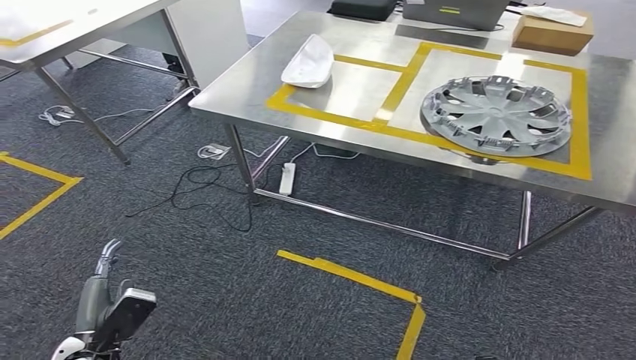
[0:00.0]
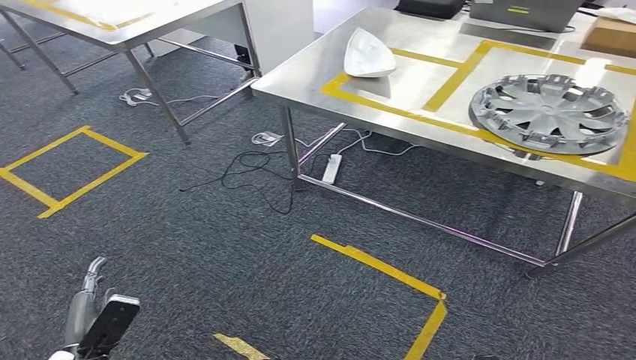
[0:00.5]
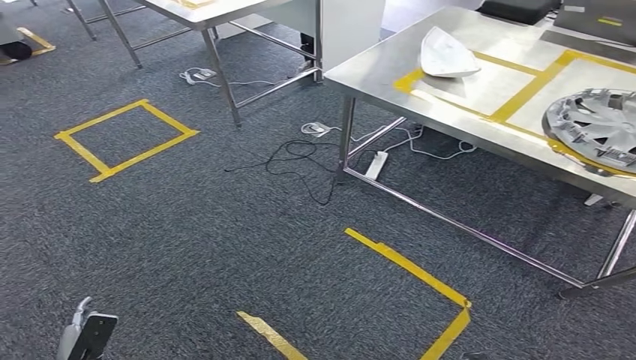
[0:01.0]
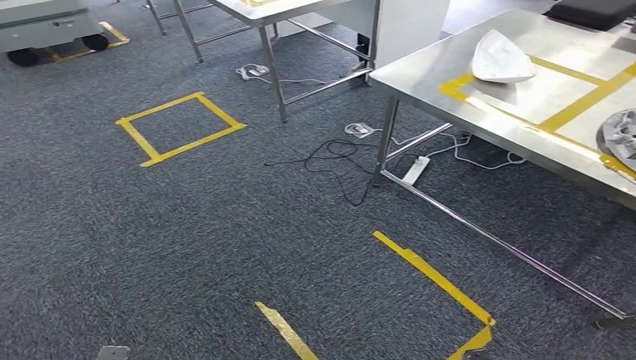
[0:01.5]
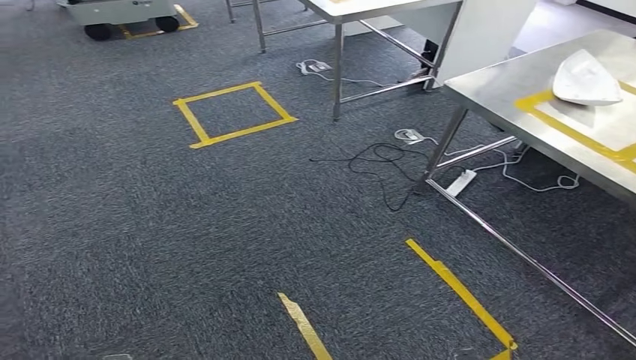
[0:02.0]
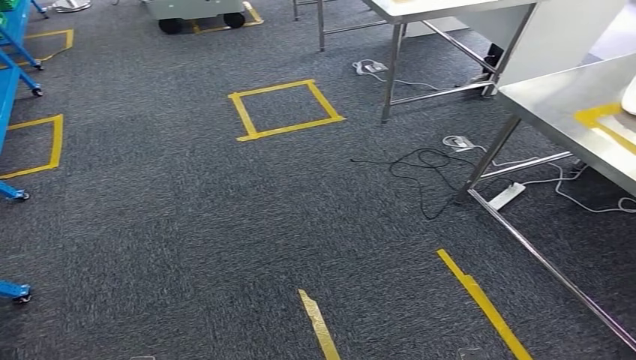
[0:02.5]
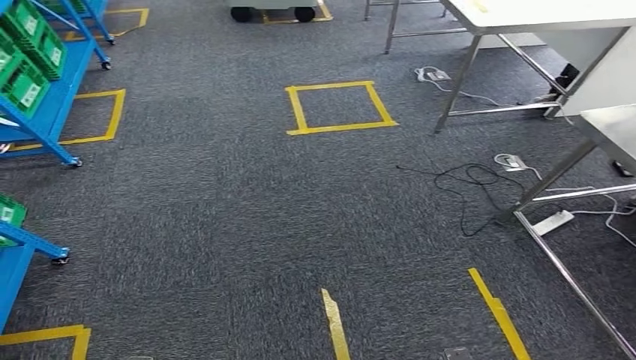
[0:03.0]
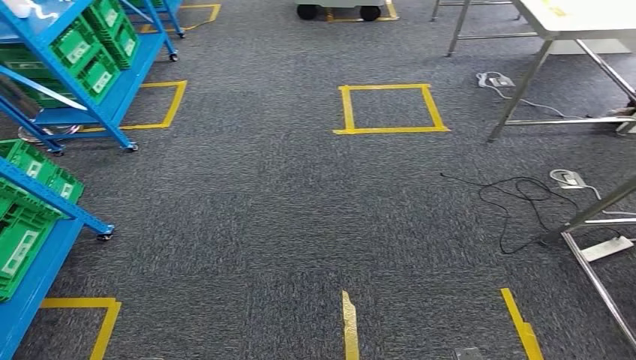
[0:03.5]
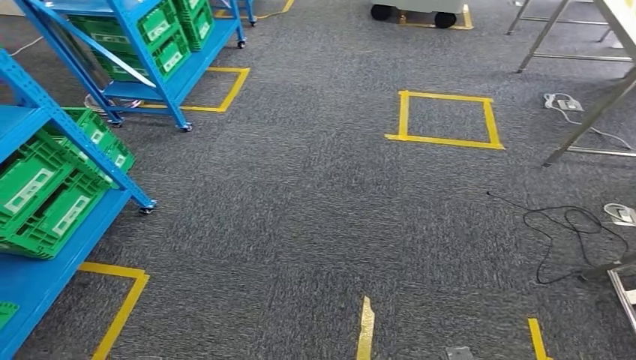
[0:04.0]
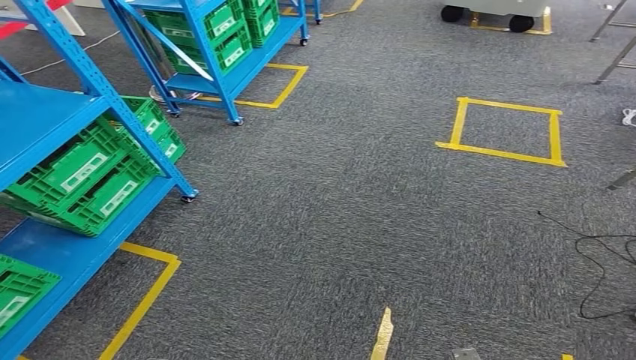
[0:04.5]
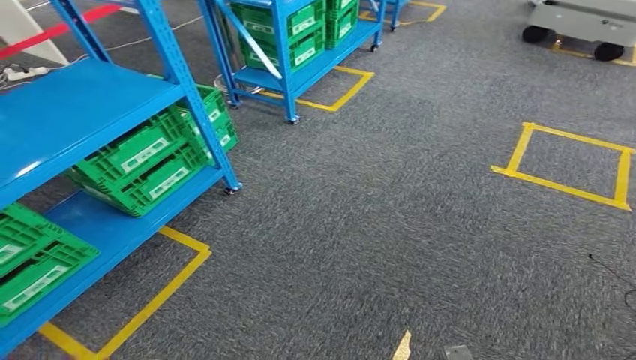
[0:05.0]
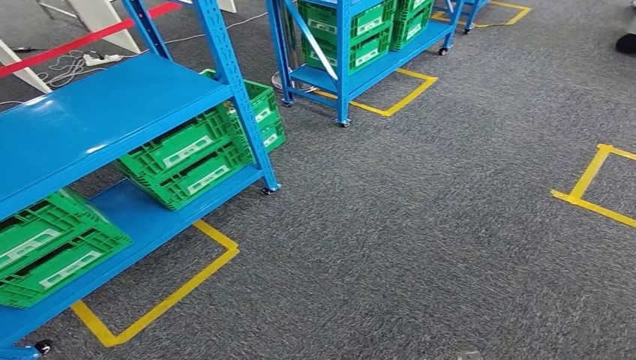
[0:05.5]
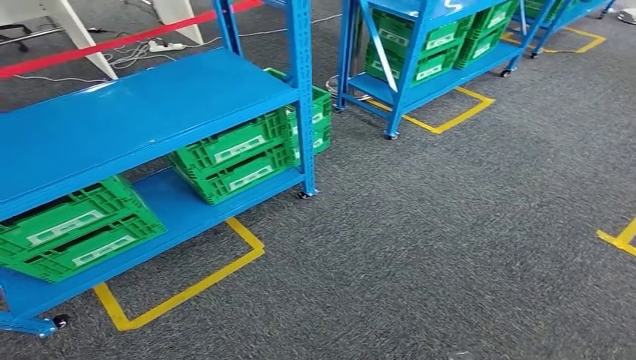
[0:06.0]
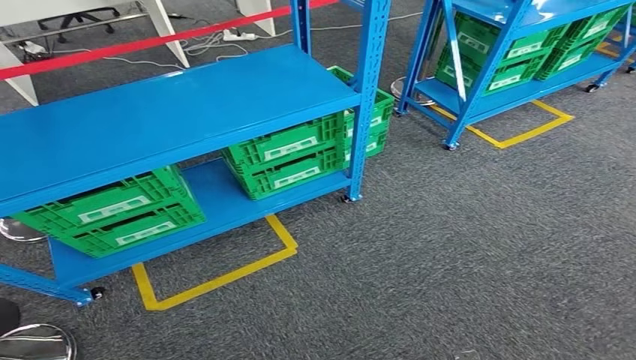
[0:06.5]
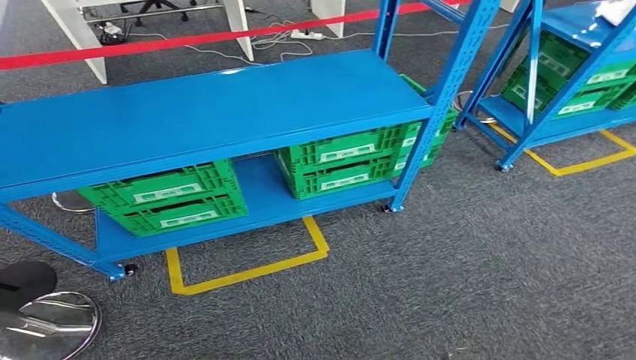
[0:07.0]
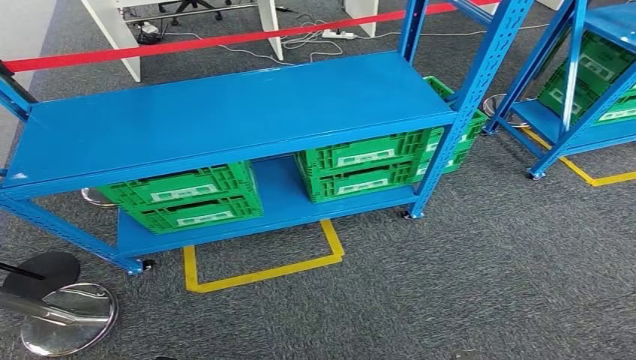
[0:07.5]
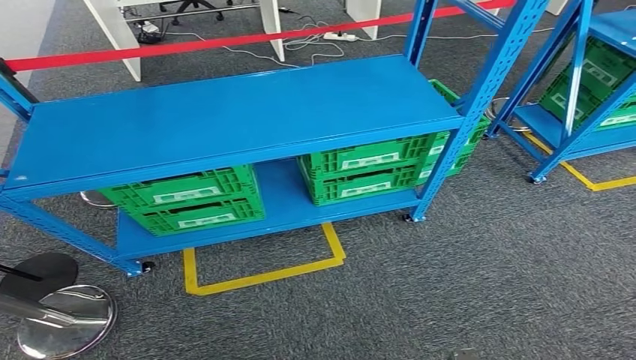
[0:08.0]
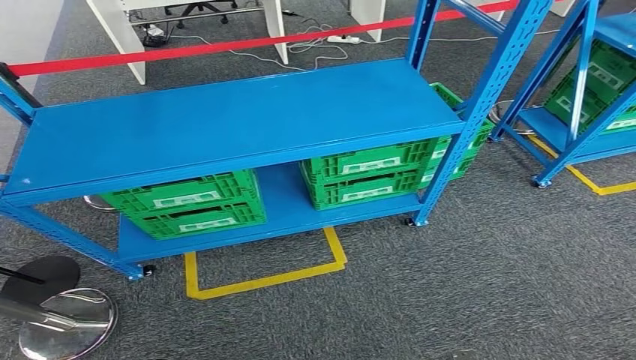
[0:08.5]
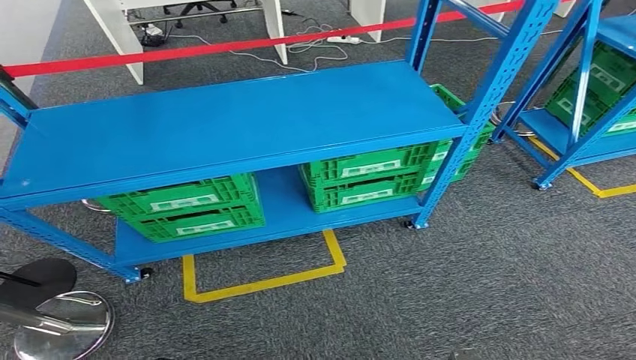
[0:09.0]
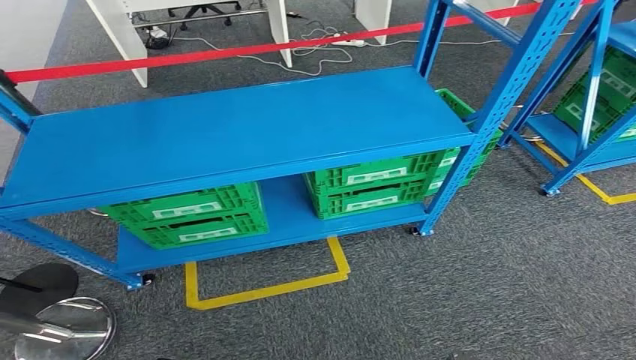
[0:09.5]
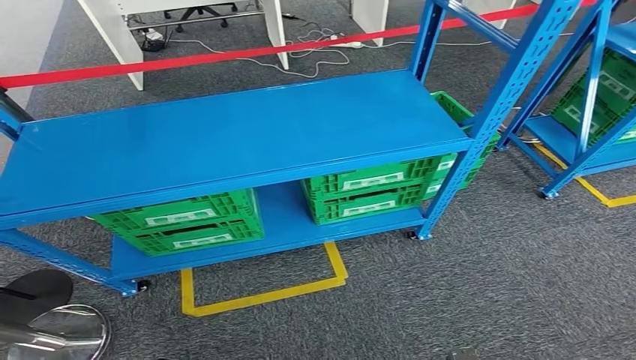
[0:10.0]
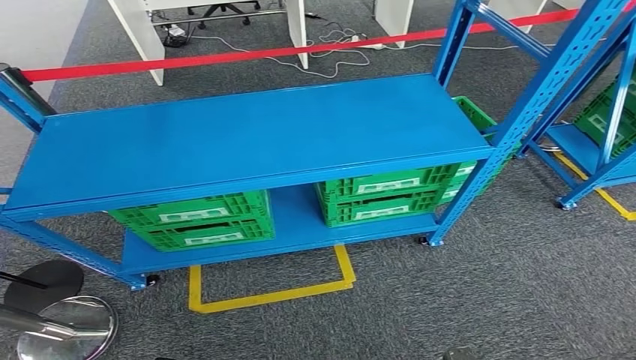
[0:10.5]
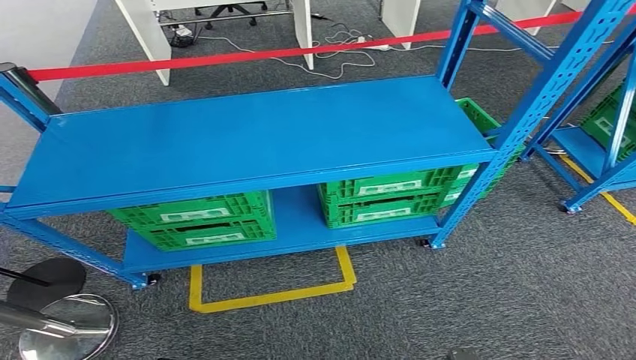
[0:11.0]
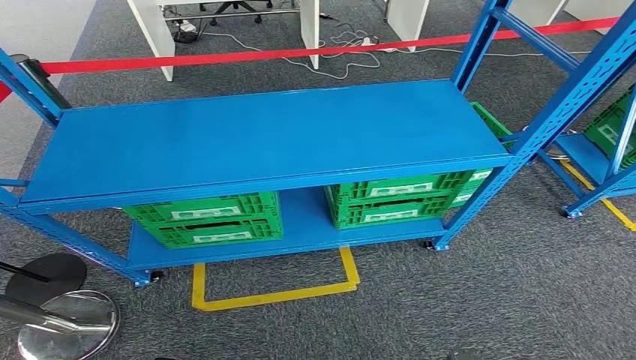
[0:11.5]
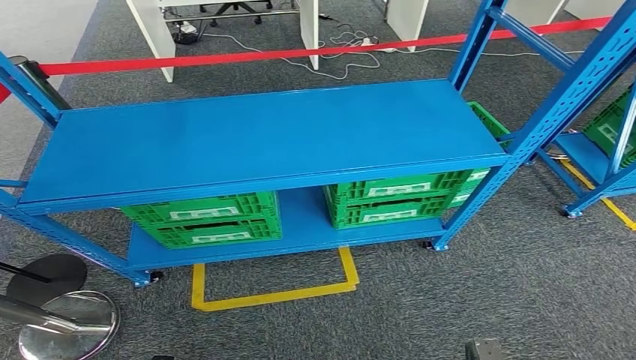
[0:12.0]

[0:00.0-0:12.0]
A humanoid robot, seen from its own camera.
Step, 0:00.0 to 0:12.0: Return to the initial position at the workbench.
